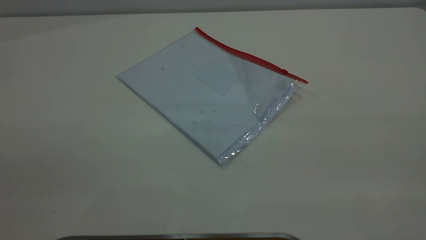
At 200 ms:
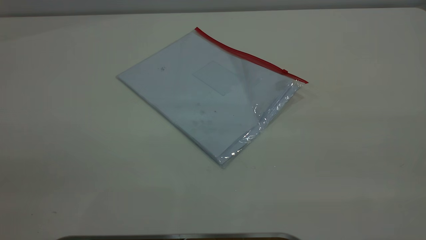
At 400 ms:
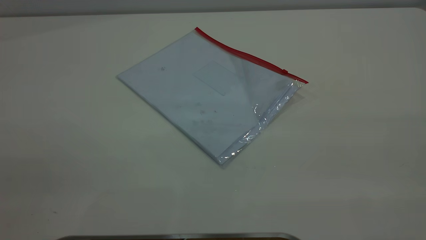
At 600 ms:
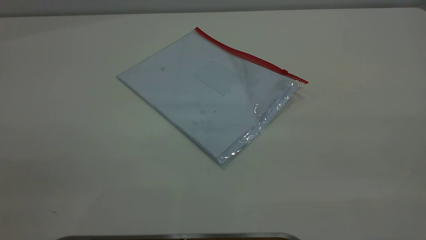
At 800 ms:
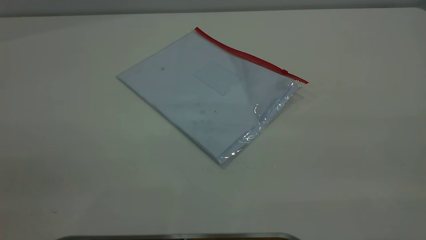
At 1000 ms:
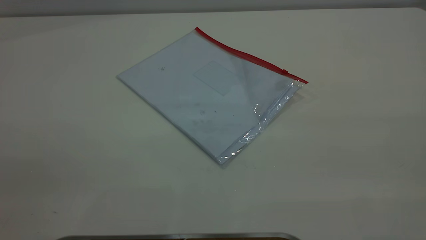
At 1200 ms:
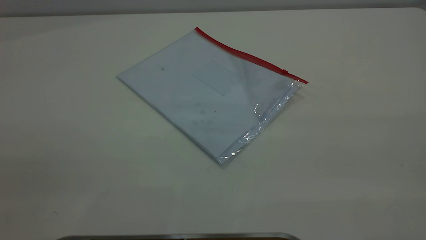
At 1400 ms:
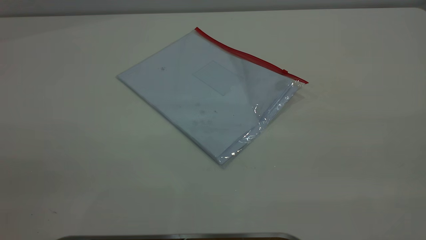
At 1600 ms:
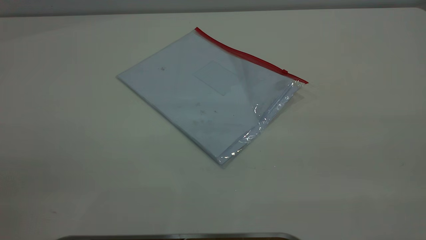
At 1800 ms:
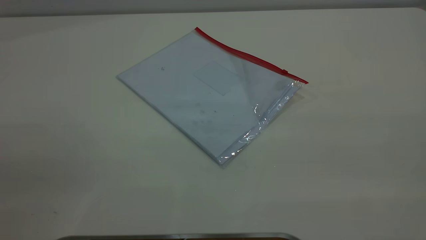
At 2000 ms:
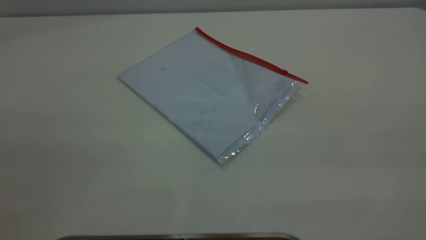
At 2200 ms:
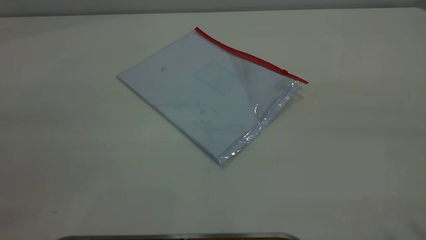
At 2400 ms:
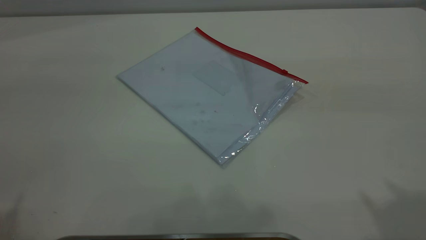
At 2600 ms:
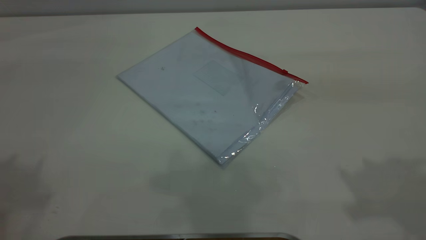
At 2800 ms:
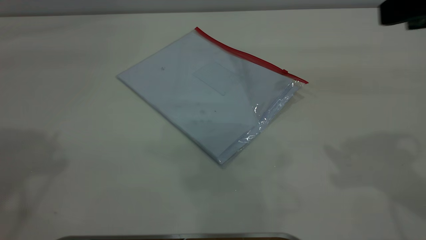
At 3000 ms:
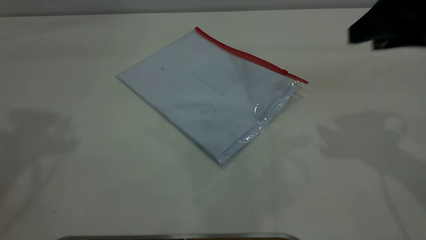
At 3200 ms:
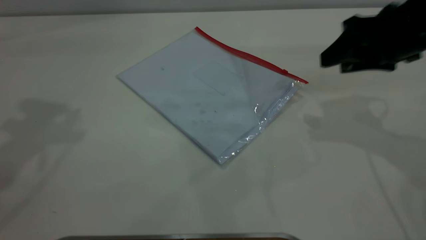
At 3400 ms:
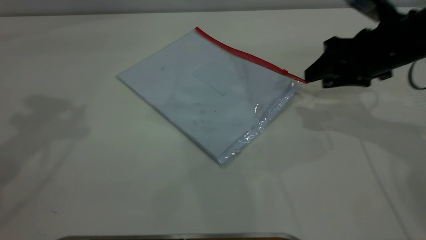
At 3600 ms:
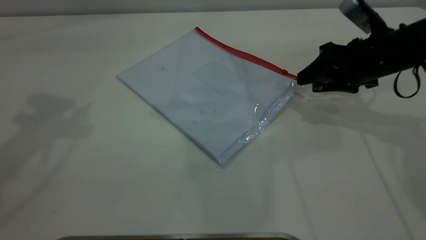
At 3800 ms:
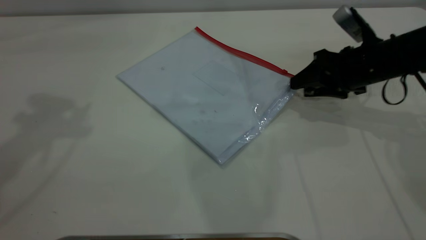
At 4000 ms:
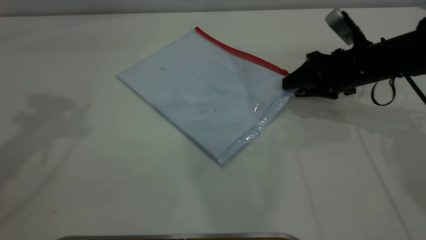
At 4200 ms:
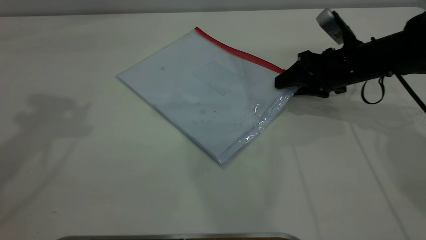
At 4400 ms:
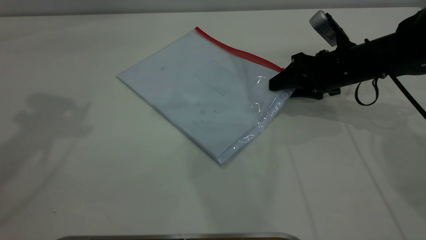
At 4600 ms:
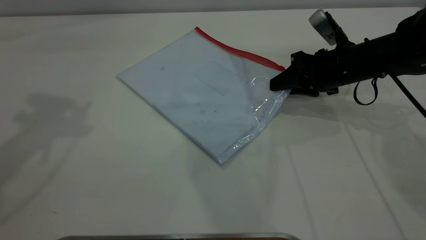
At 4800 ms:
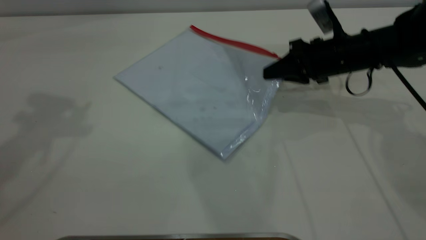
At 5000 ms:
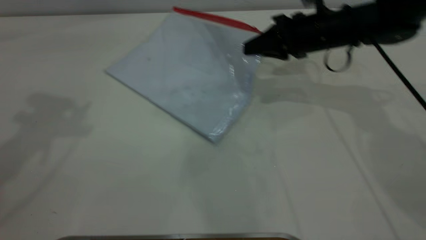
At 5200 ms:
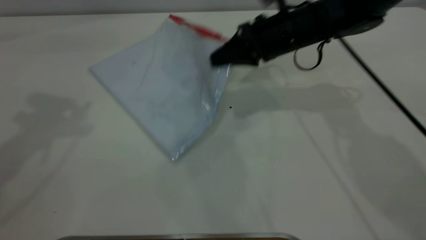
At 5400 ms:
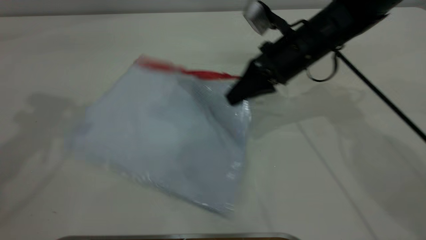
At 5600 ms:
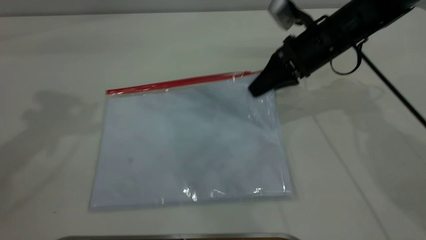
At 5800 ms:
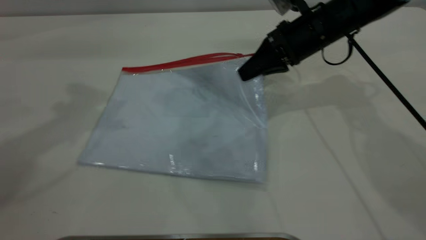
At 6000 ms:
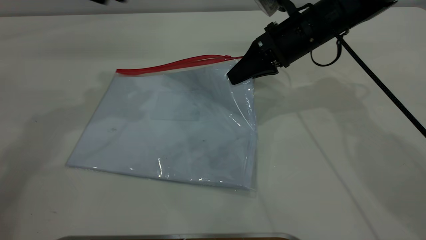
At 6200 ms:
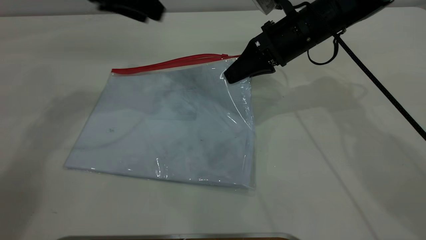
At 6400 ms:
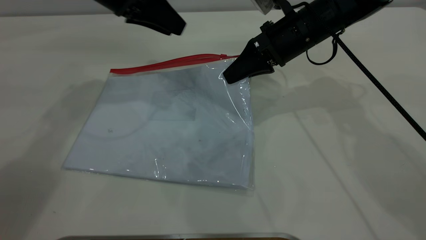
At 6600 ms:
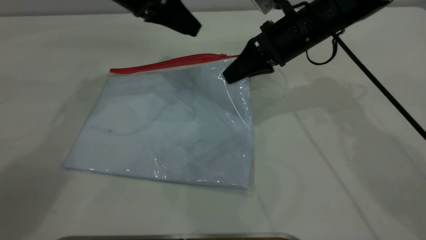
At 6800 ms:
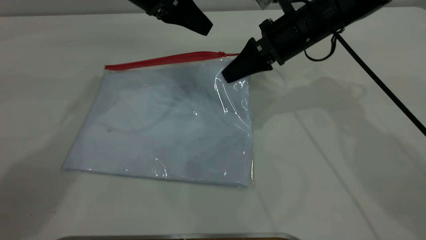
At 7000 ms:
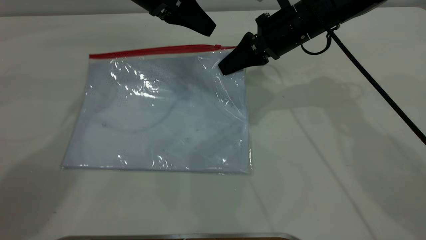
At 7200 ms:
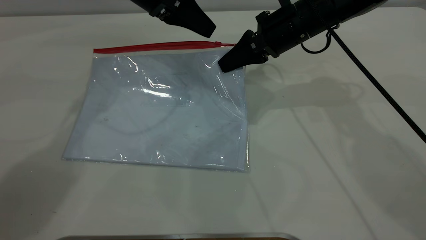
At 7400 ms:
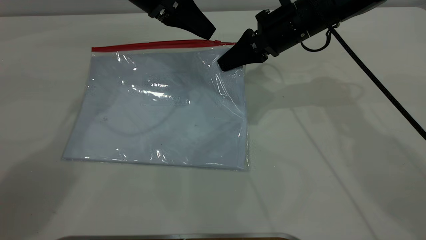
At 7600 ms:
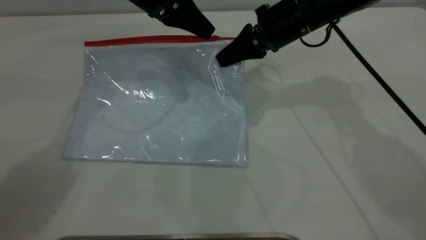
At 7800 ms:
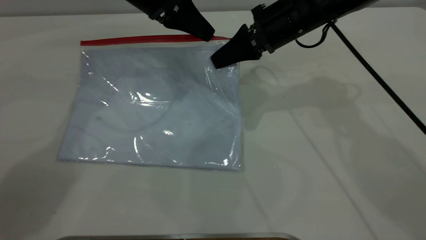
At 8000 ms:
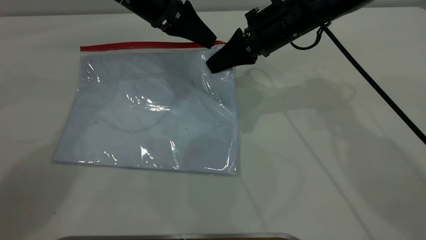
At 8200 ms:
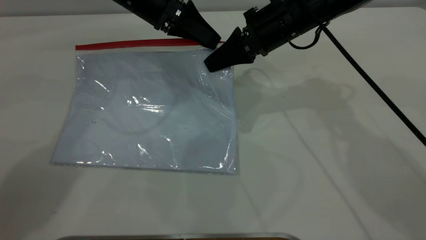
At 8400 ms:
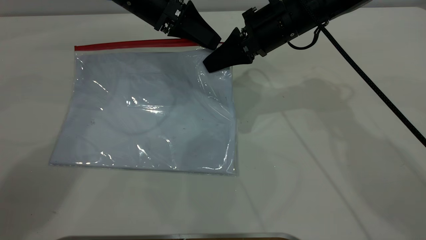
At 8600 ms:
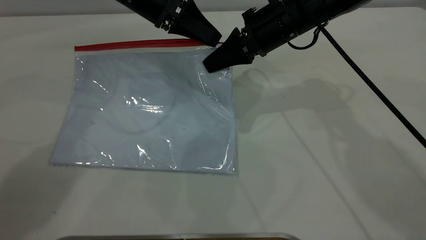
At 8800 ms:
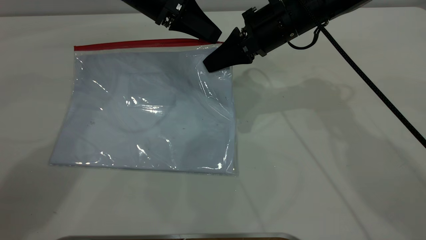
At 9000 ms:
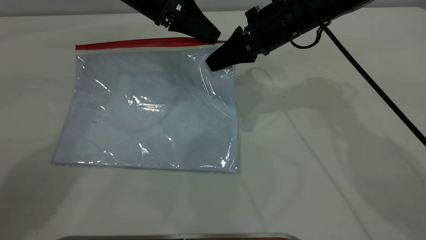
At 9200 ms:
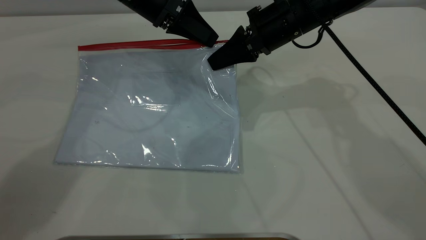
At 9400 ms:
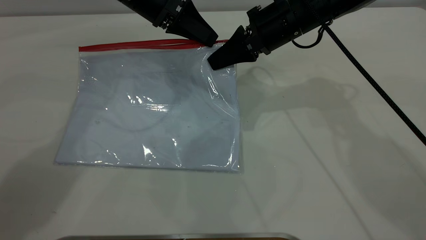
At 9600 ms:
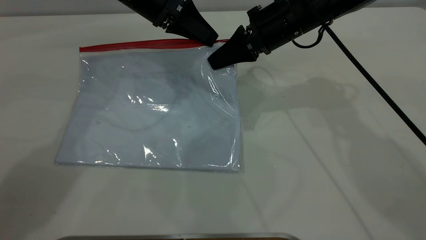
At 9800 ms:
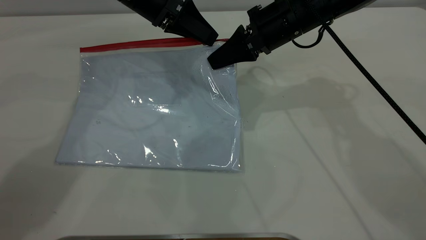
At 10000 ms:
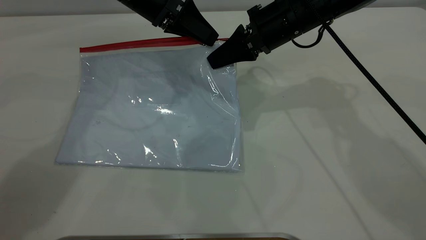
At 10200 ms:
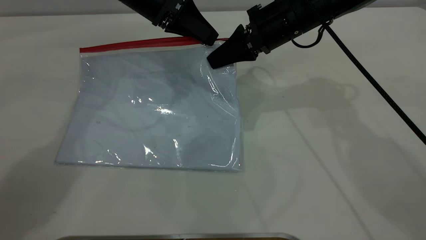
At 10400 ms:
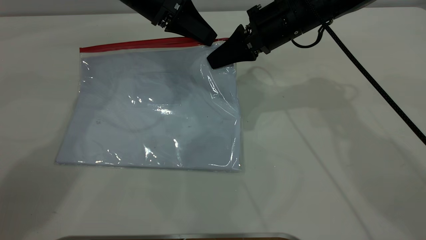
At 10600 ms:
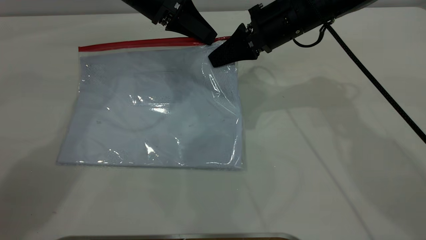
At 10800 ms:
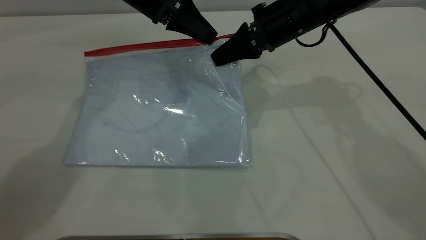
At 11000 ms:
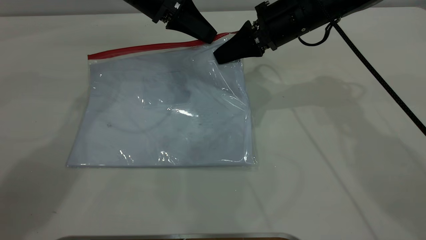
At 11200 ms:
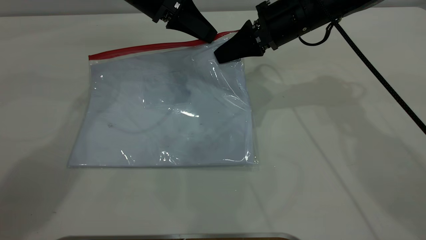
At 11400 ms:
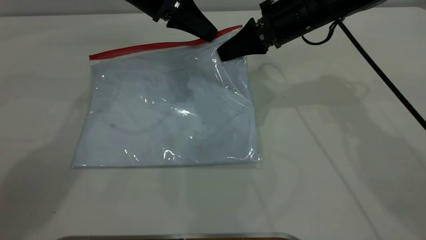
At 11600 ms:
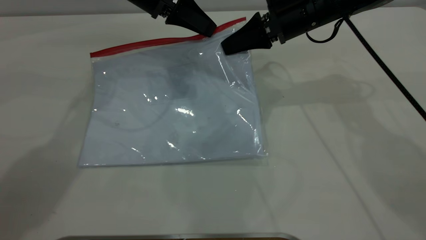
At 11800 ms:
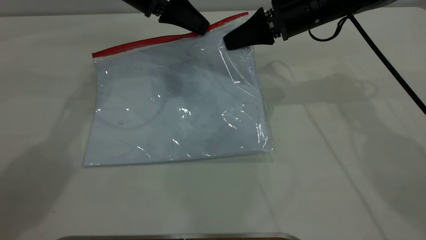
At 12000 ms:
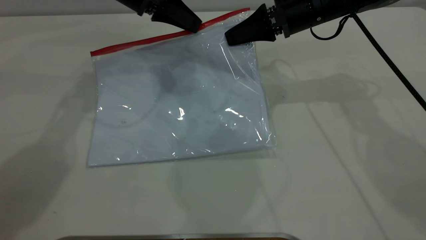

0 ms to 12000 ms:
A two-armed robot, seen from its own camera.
Step, 0 ms to 5800 ms: Pick up the transparent plastic bag with the right gripper.
0 ms to 1600 ms: Neither gripper changes place.
1600 ms to 3000 ms: The right gripper shifts roughly 35 cm forward and downward.
3000 ms to 4400 ms: The right gripper moves downward and forward, approximately 20 cm.
4400 ms to 6000 ms: The left gripper moves downward, to the right and forward, some 15 cm. Meanwhile the right gripper travels to the left and upward by roughly 10 cm, and closes its fingers.
6000 ms to 7600 ms: The left gripper moves to the right, downward and forward, some 15 cm.
7600 ms to 9000 ms: The left gripper closes up.
9000 ms to 10400 ms: The left gripper opens, then closes again.
10400 ms to 12000 ms: The left gripper closes up.

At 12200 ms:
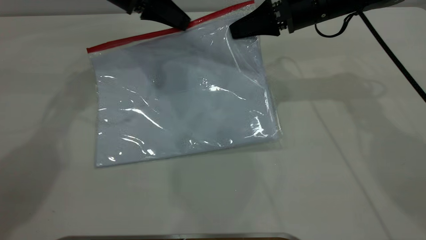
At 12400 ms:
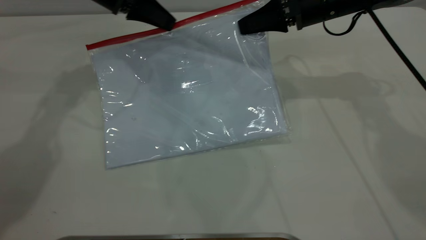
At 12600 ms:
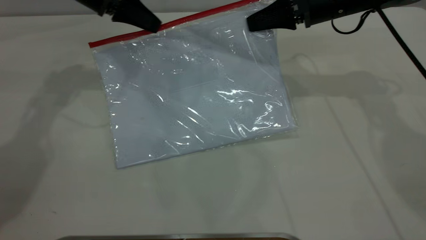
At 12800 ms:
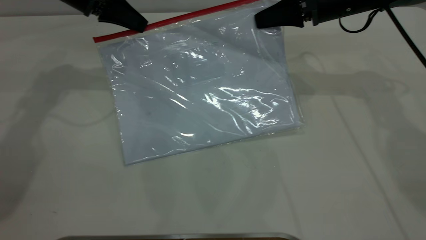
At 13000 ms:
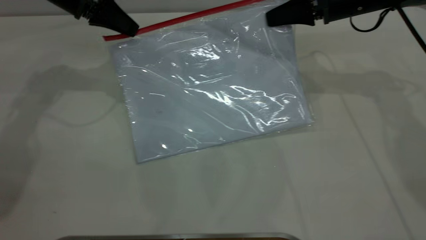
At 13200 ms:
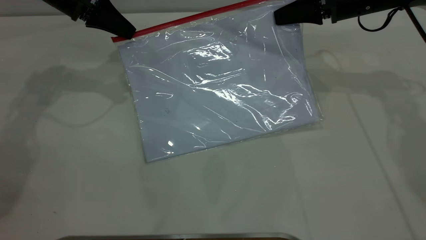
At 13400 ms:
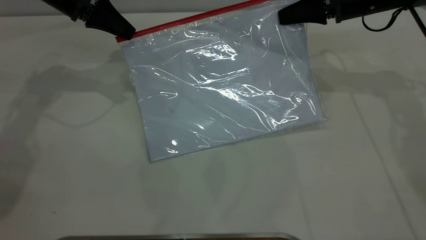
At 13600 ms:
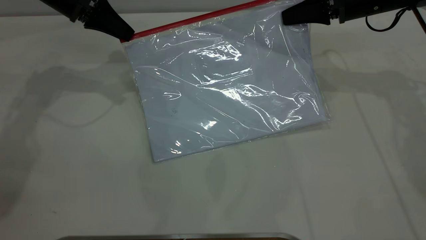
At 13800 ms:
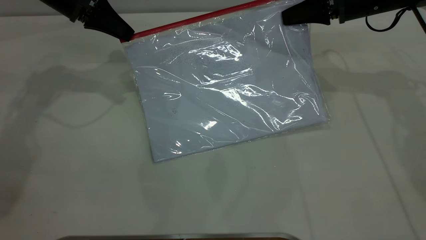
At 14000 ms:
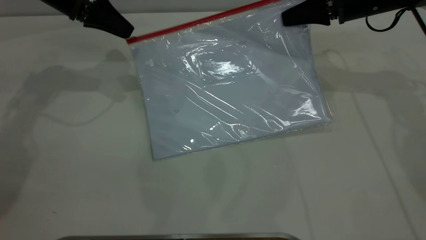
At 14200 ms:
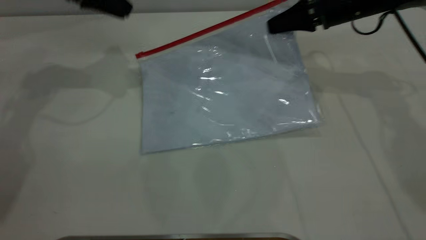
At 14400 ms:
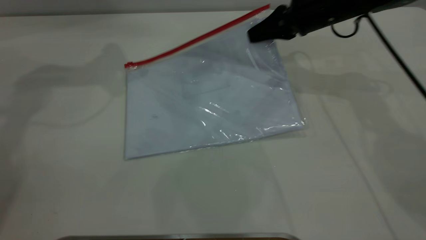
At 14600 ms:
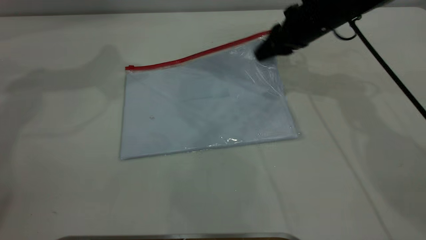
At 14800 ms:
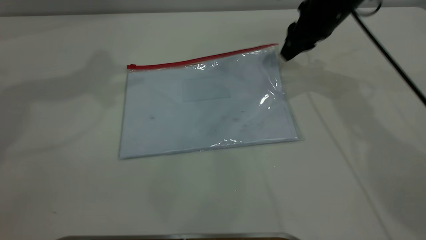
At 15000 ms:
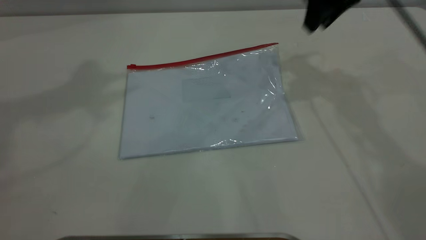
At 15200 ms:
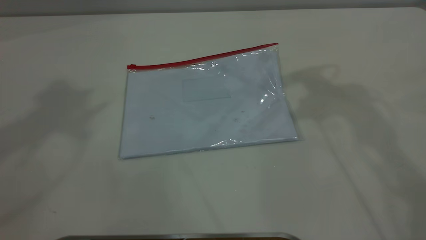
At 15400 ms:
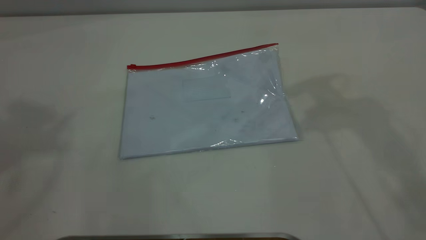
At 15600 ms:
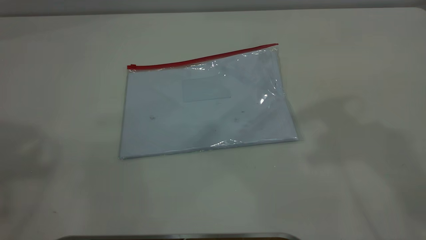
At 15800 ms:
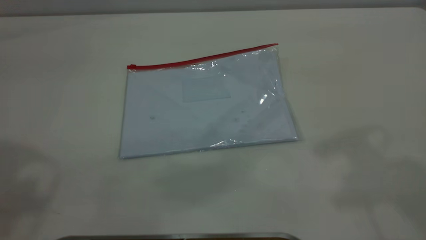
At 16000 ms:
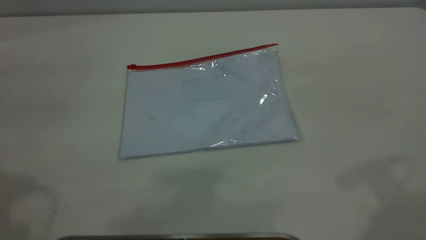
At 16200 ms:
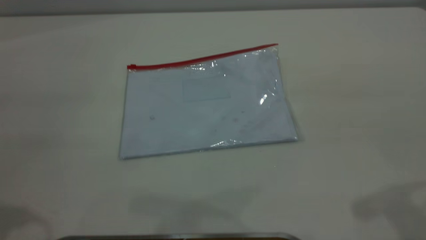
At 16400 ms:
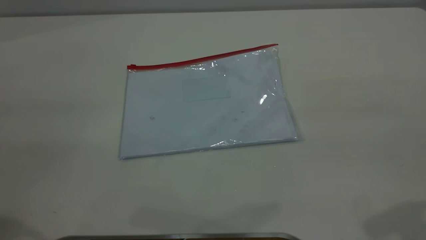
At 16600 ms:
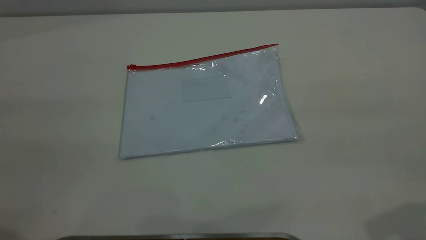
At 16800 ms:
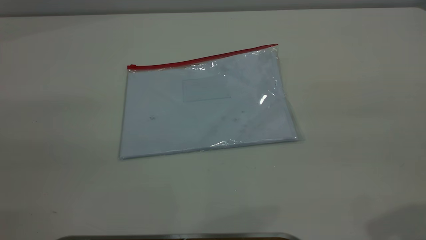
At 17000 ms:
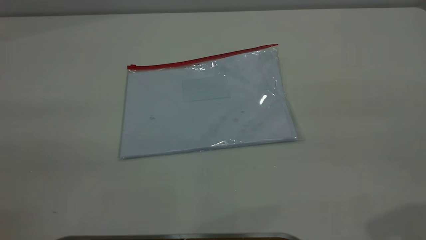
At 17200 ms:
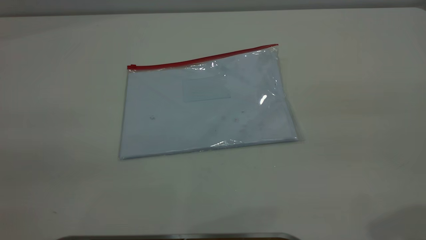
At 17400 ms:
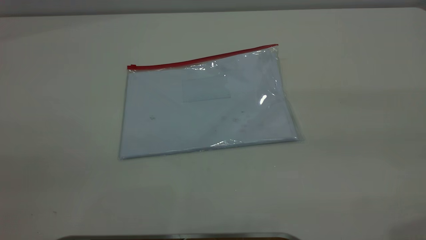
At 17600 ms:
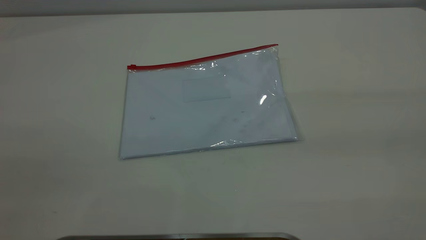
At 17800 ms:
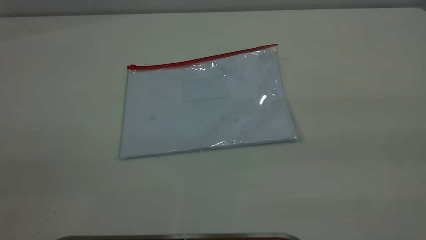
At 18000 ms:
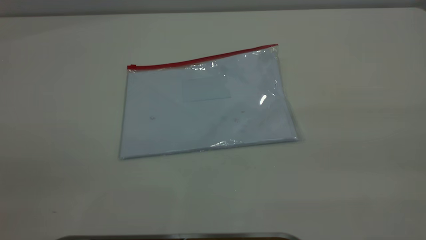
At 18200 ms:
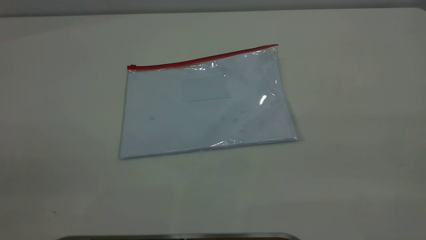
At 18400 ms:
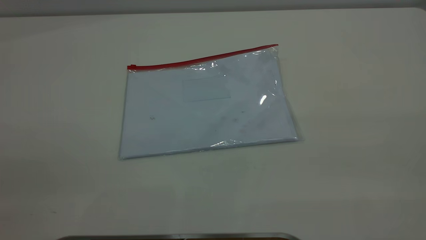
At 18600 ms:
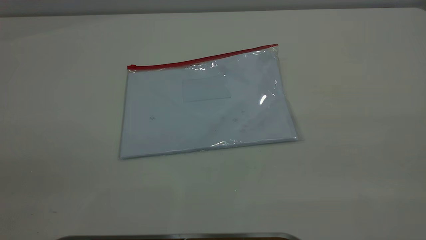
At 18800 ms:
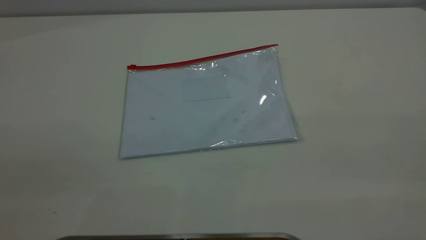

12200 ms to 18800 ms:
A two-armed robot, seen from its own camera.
Step, 14400 ms to 15000 ms: Place the transparent plastic bag.
12200 ms to 13800 ms: The left gripper travels to the left by some 10 cm, while the right gripper heads to the right, covering some 10 cm.
13800 ms to 15400 ms: The right gripper goes about 25 cm upward and backward, and opens up; the left gripper travels upward and backward by some 40 cm, and opens its fingers.
